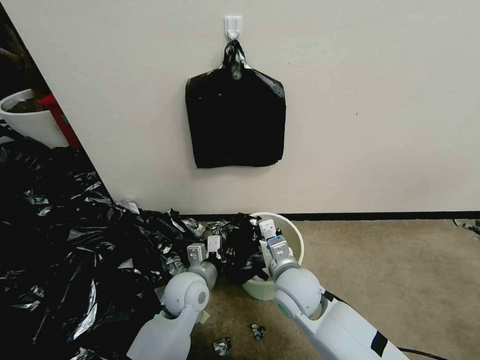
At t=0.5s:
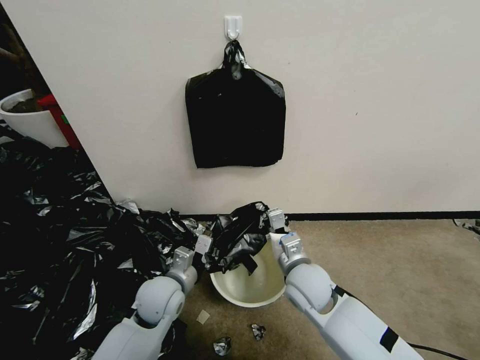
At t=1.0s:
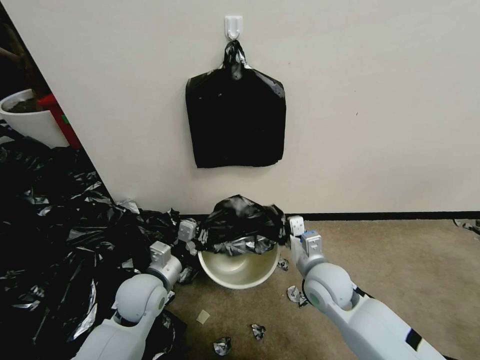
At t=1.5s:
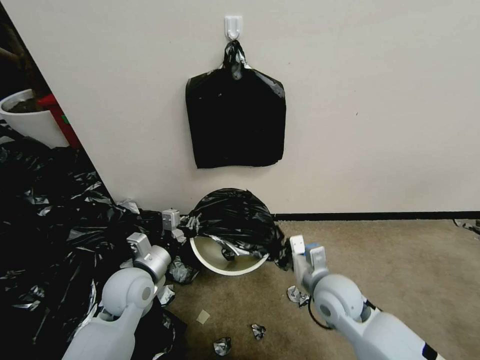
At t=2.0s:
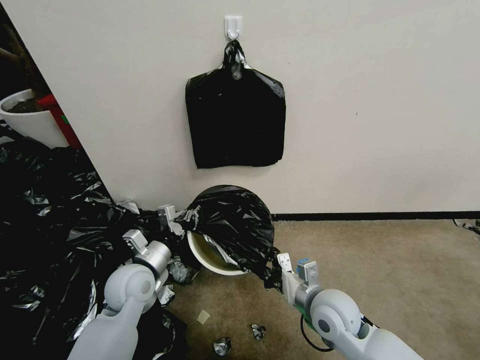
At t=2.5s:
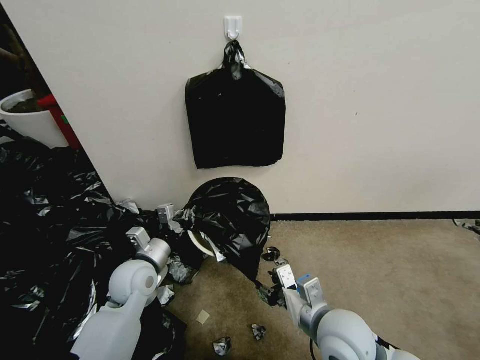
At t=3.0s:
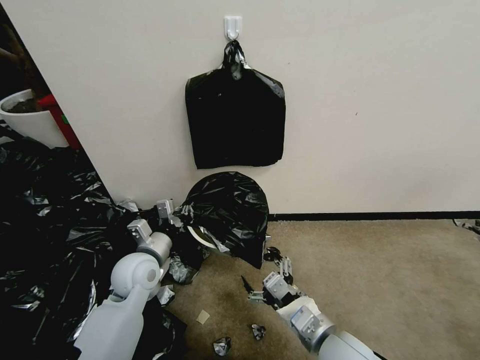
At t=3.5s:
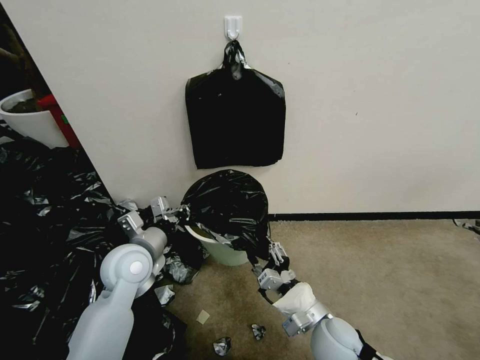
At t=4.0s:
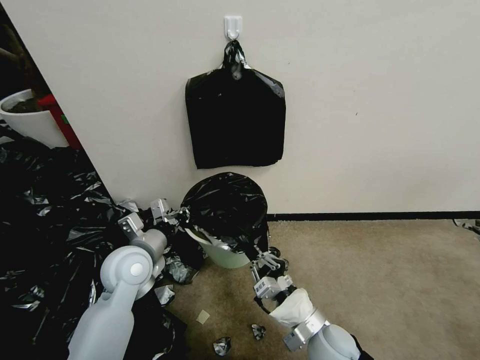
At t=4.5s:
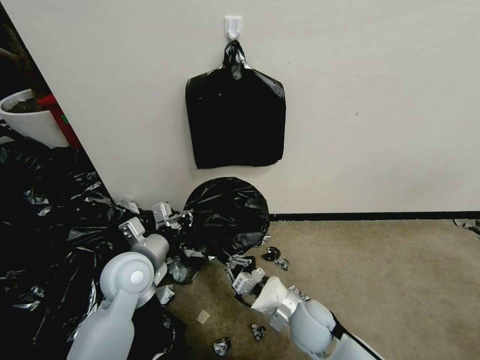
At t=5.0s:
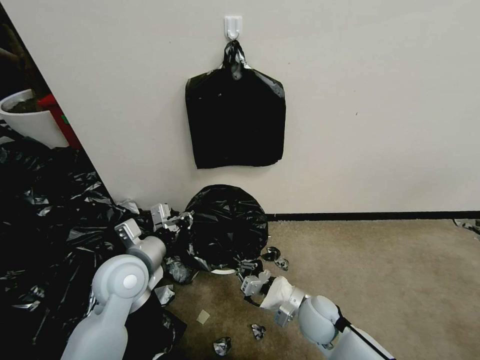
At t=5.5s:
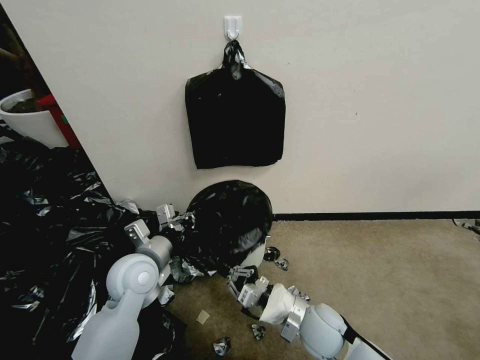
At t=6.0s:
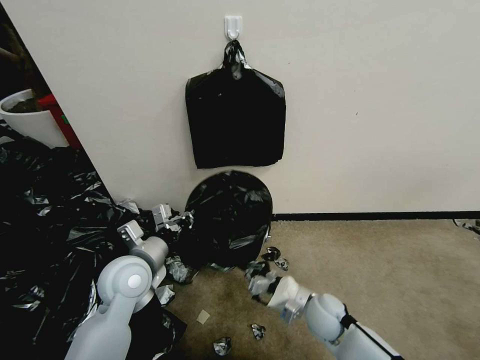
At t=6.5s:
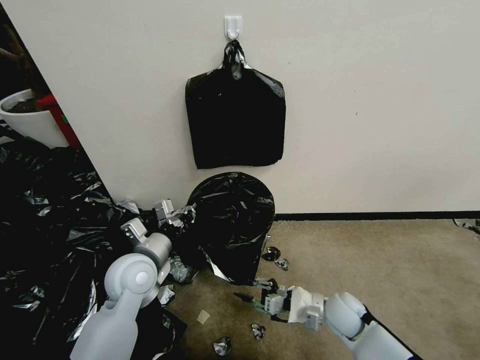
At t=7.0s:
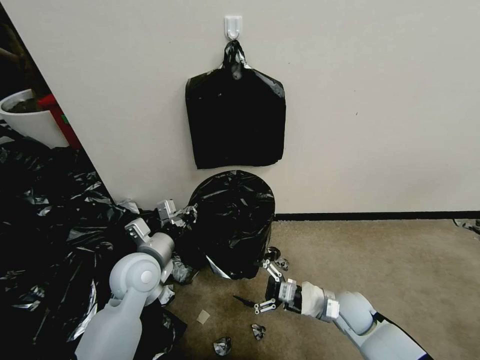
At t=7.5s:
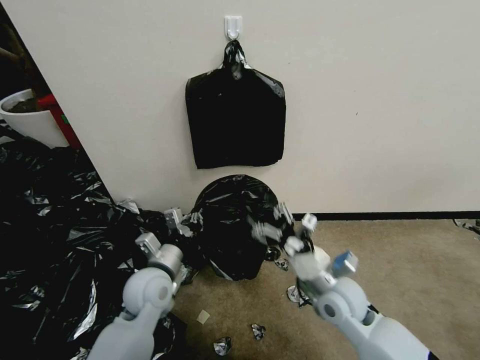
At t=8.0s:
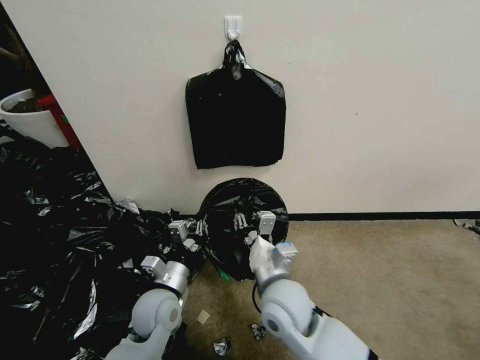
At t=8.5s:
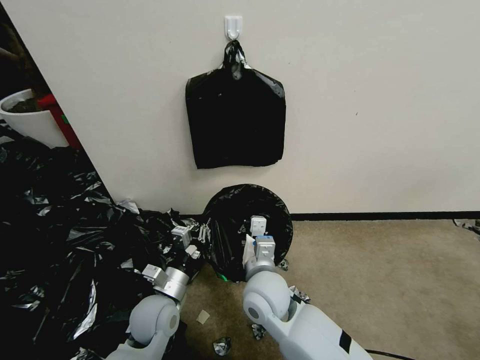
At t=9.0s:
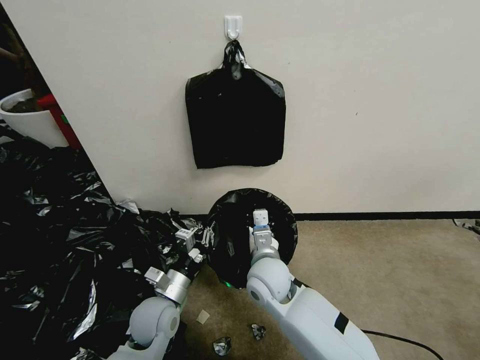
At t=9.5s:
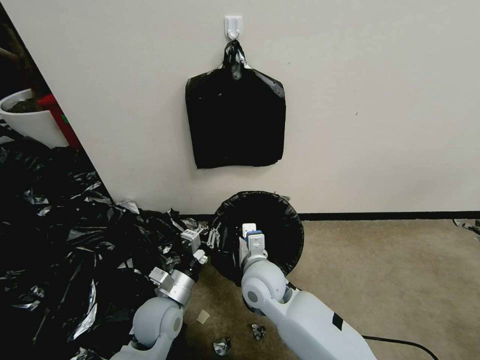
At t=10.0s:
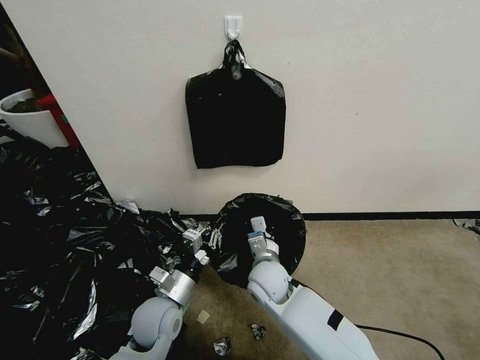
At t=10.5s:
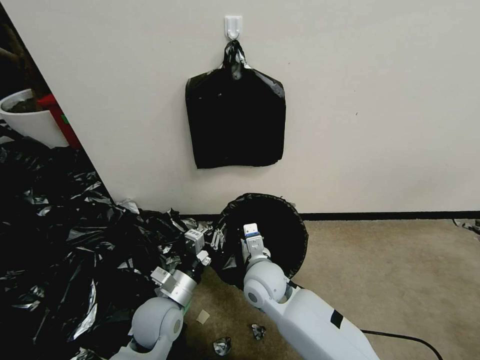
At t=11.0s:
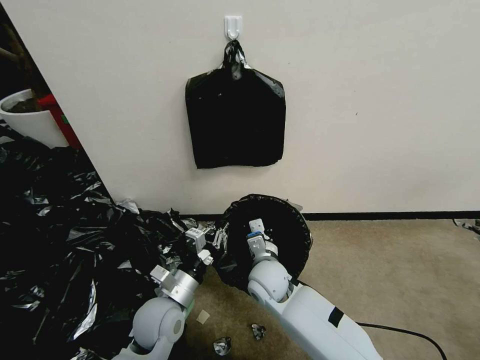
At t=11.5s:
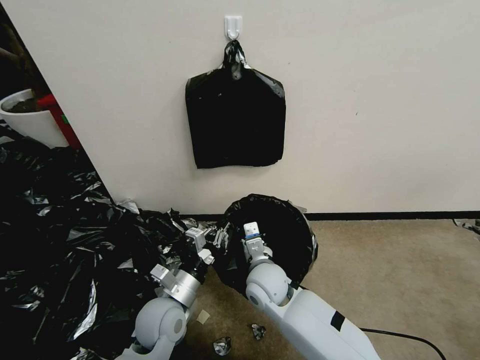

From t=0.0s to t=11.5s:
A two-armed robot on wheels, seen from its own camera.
Task of the whole recording: Place a trash bag onto the trash bin.
From t=0.0s to t=2.0s: The right gripper is displaced to the right by roughly 10 cm. The left gripper shifts some 10 cm to the left.
From t=2.0s to t=4.0s: The left gripper shifts by about 5 cm; the right gripper heads backward, covering about 5 cm, and opens and closes again.
From t=4.0s to t=6.0s: The right gripper is displaced forward and downward by roughly 10 cm.
From t=6.0s to t=7.5s: The right gripper goes some 10 cm upward, and opens up; the left gripper moves downward, roughly 5 cm.
From t=7.5s to t=9.5s: The right gripper heads to the left, covering approximately 15 cm, and closes its fingers. The left gripper heads downward, covering some 5 cm.

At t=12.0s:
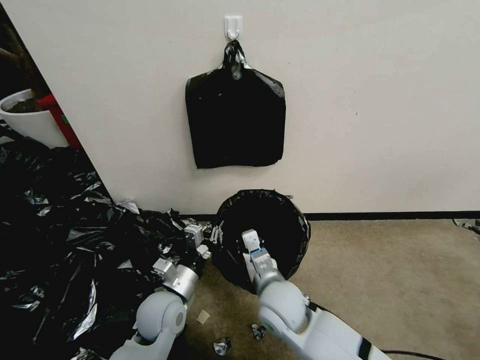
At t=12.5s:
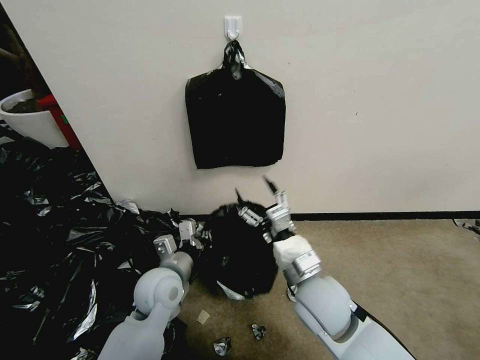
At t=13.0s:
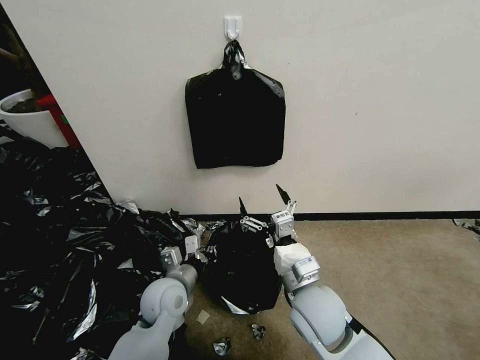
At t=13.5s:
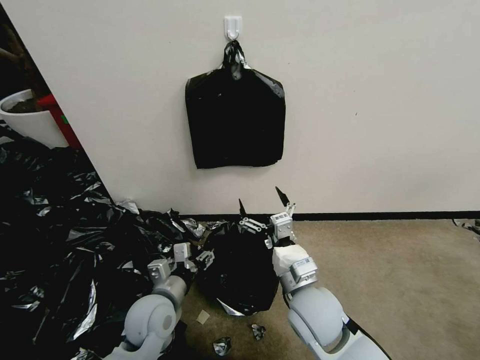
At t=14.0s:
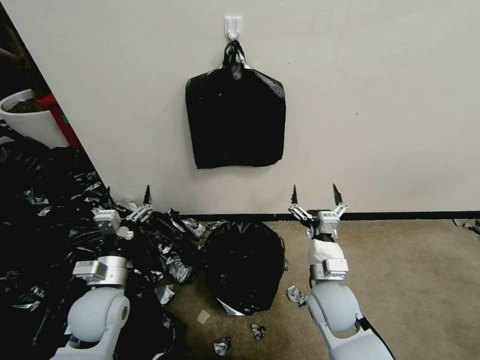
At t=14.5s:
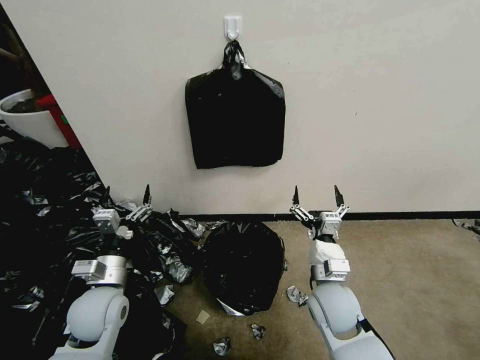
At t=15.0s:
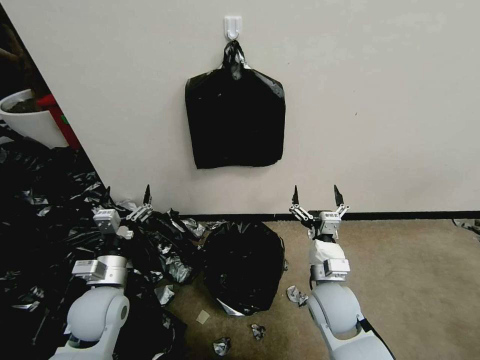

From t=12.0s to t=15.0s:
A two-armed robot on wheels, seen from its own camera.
Task of the whole recording: Place a trash bag onto the trash bin.
From t=12.0s to t=13.5s: The left gripper opens. The right gripper travels to the right by roughly 5 cm, and opens up.
From t=13.5s to t=15.0s: The right gripper shifts about 5 cm to the right, while the left gripper heads to the left, covering approximately 10 cm.
